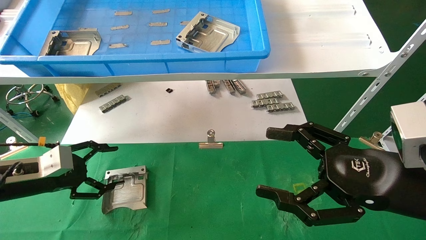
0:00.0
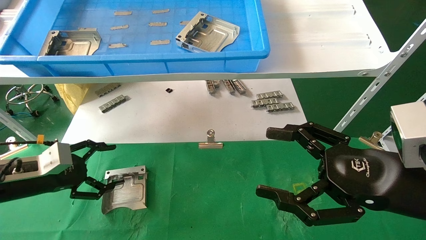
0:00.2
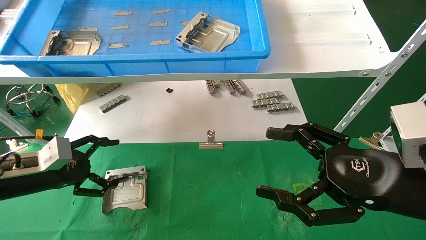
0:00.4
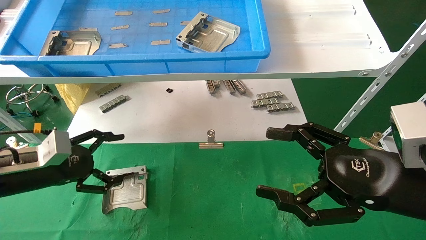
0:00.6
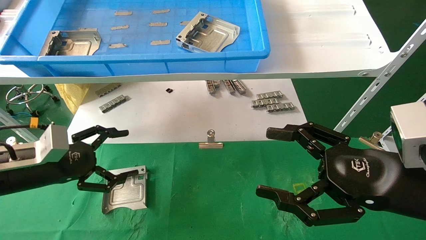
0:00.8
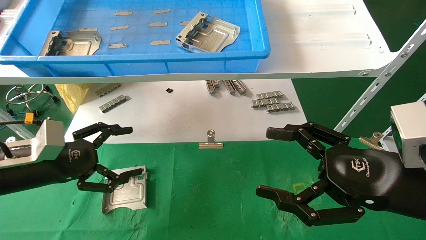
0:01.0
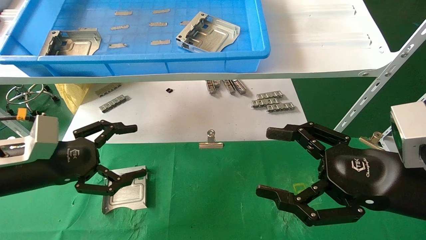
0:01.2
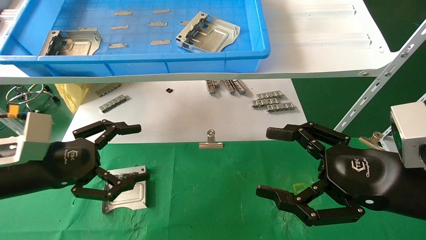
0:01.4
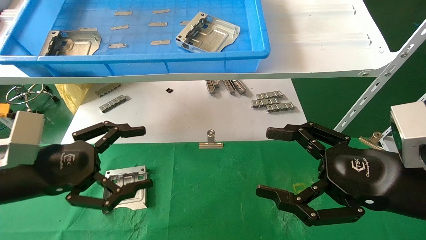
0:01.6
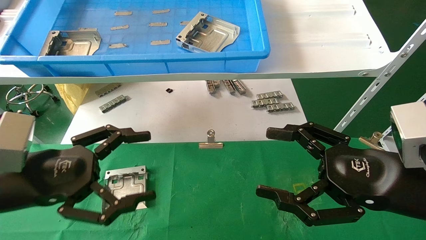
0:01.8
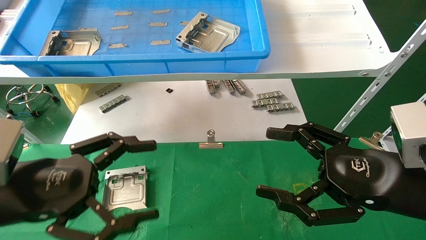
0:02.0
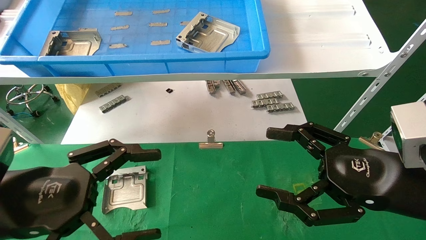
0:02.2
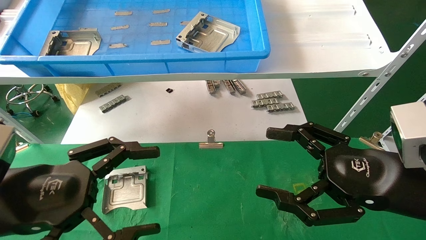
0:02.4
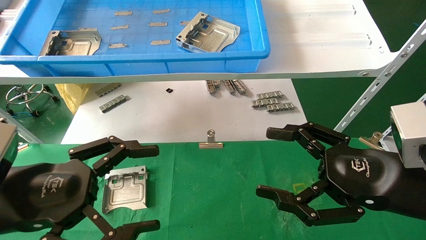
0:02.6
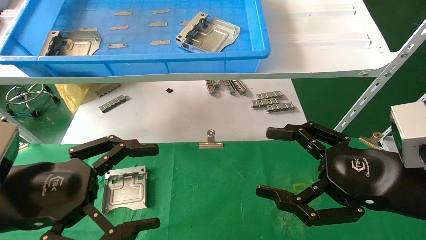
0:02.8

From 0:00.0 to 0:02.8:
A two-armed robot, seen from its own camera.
Task of the whole recording: use the mechanical arm to pick up the parts and place them on the table.
From 0:00.0 to 0:01.4: The left gripper travels to the right, backward and upward by approximately 10 cm.
From 0:01.4 to 0:02.8: The left gripper shifts approximately 10 cm backward.

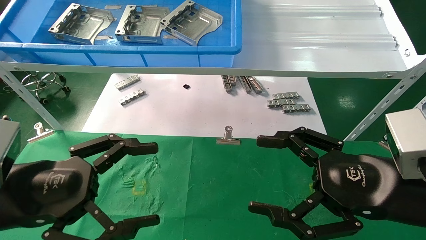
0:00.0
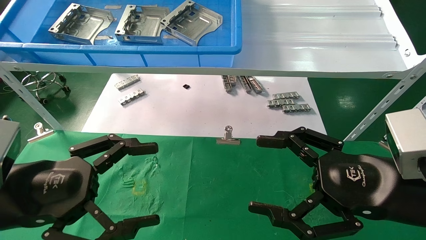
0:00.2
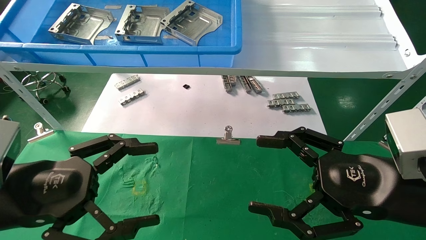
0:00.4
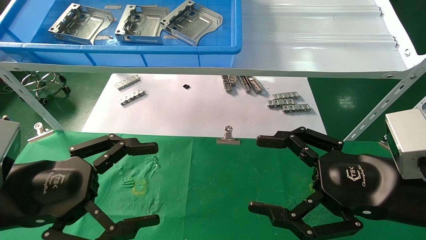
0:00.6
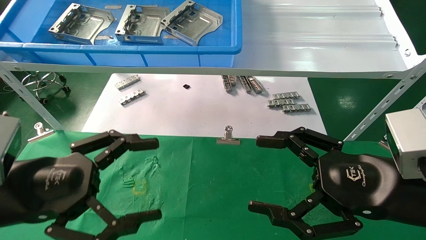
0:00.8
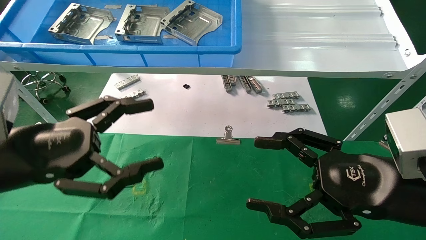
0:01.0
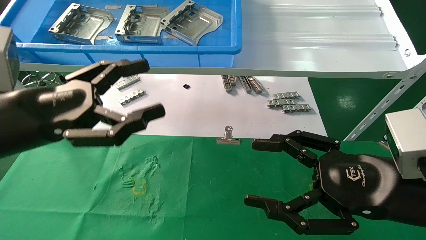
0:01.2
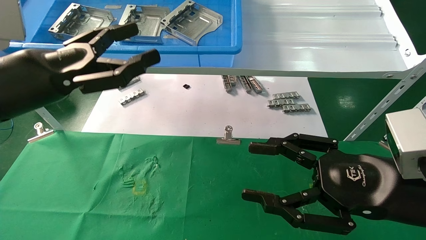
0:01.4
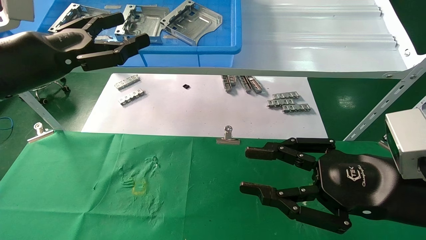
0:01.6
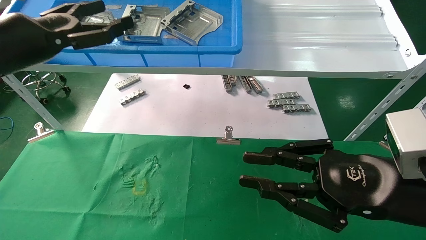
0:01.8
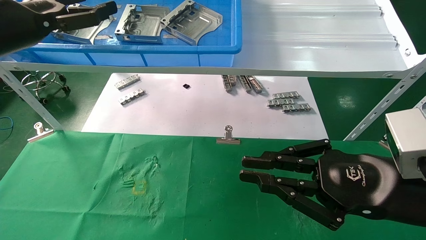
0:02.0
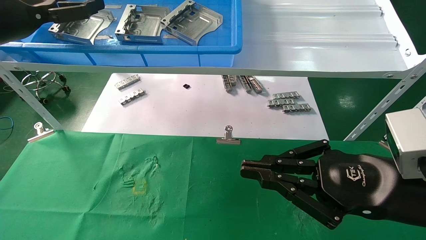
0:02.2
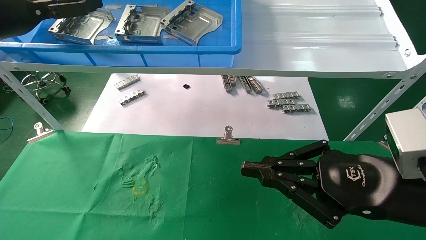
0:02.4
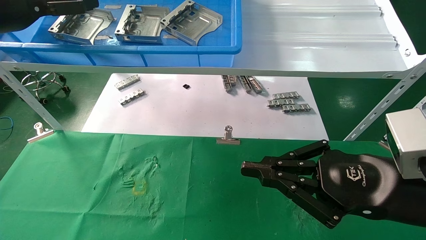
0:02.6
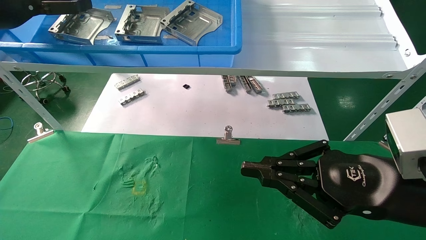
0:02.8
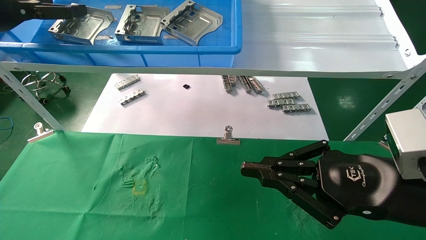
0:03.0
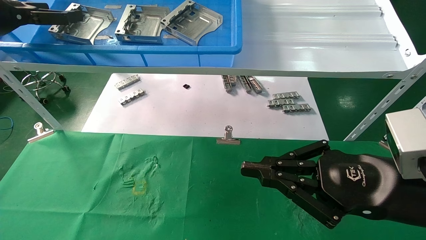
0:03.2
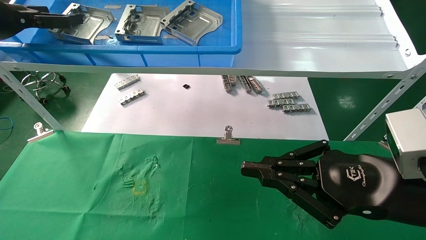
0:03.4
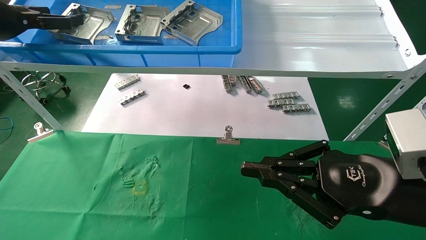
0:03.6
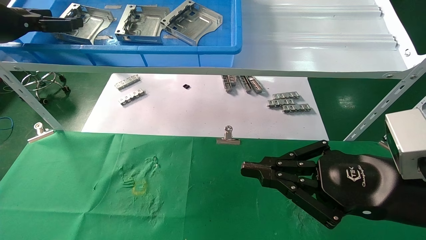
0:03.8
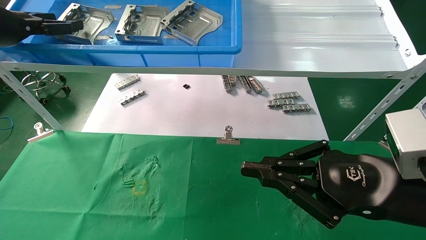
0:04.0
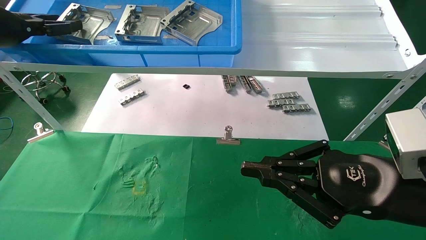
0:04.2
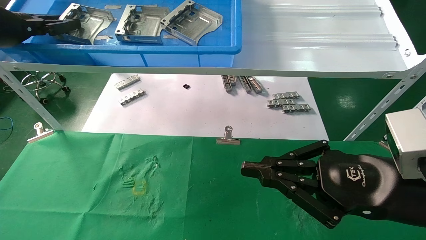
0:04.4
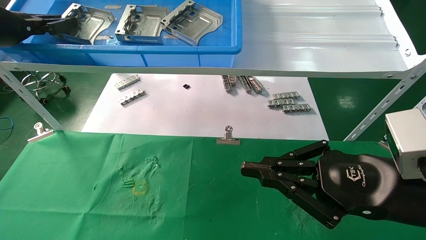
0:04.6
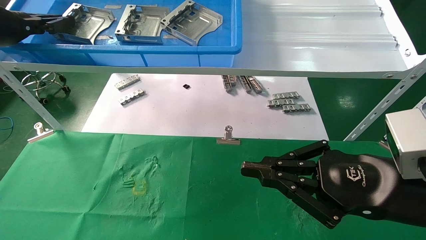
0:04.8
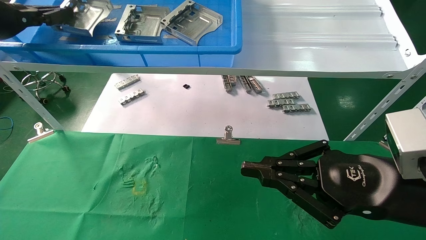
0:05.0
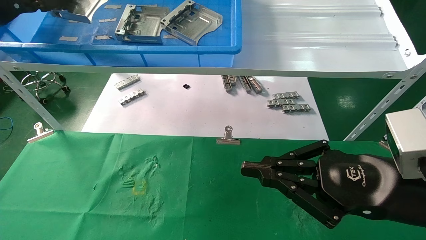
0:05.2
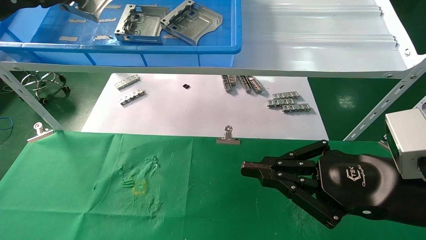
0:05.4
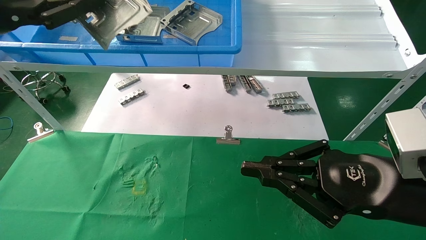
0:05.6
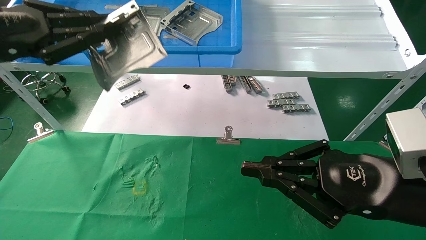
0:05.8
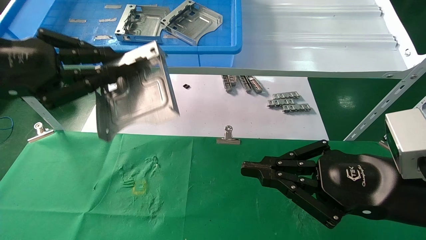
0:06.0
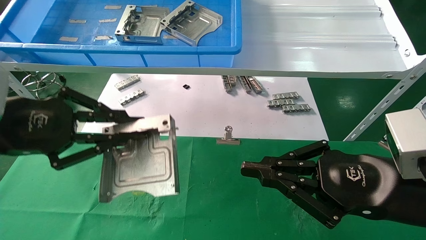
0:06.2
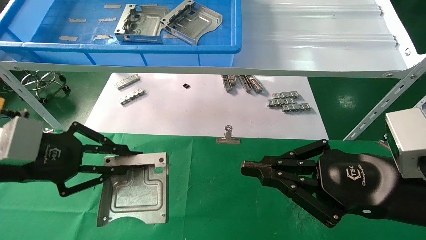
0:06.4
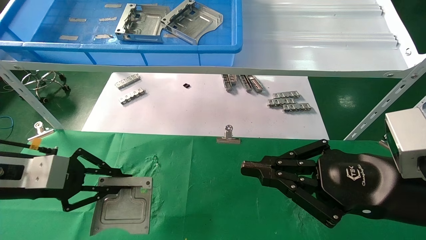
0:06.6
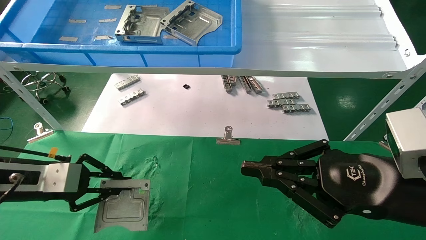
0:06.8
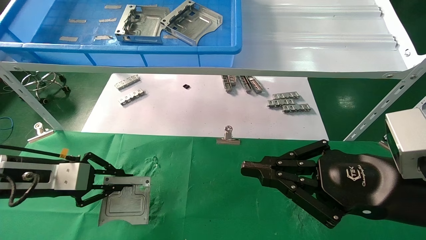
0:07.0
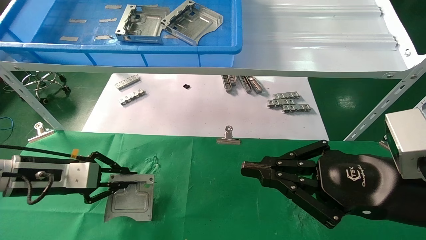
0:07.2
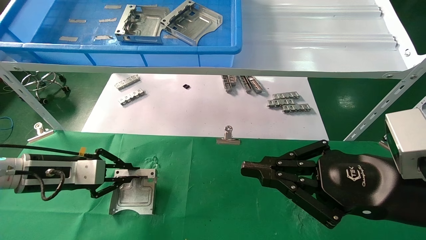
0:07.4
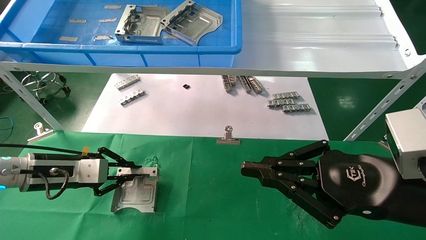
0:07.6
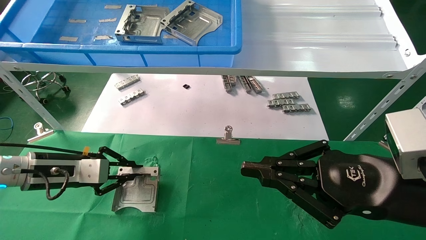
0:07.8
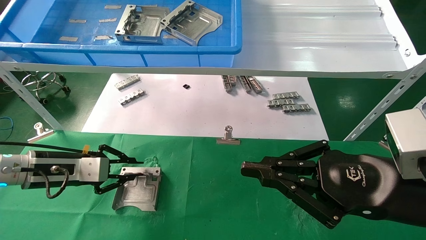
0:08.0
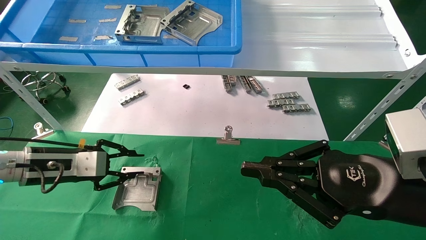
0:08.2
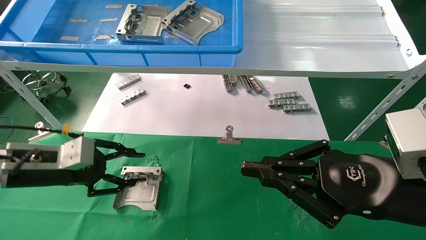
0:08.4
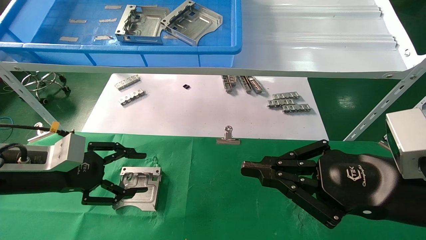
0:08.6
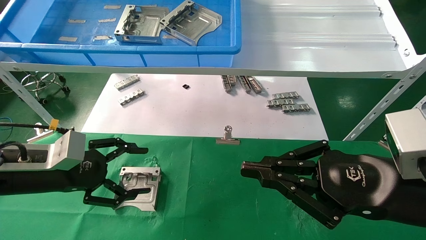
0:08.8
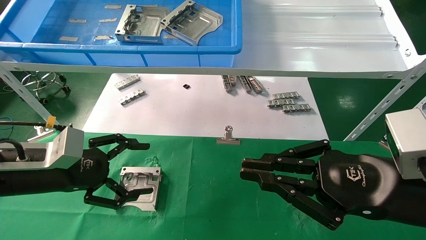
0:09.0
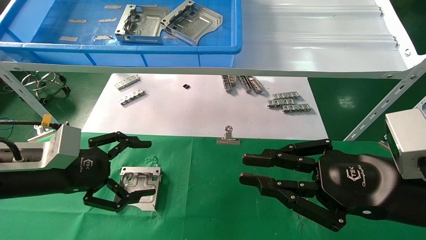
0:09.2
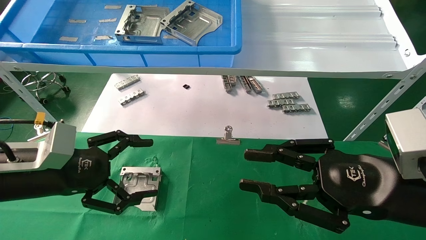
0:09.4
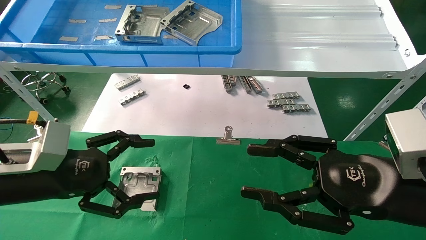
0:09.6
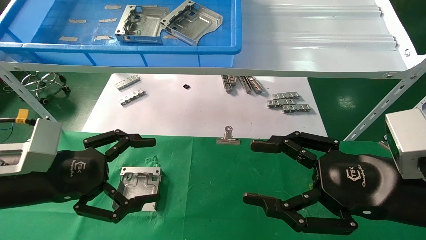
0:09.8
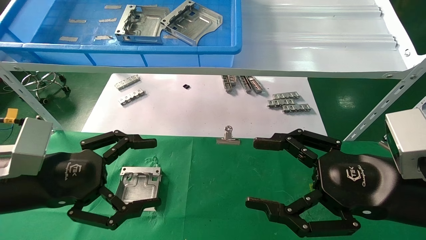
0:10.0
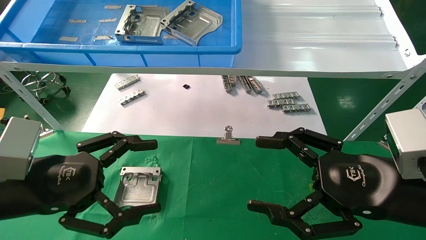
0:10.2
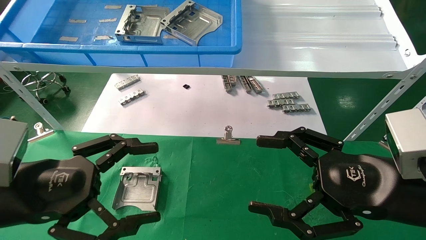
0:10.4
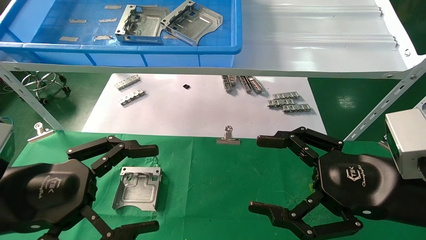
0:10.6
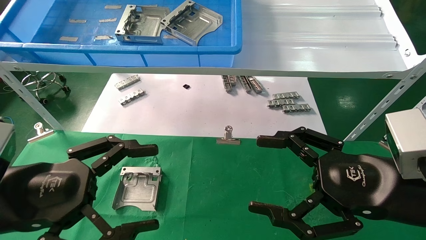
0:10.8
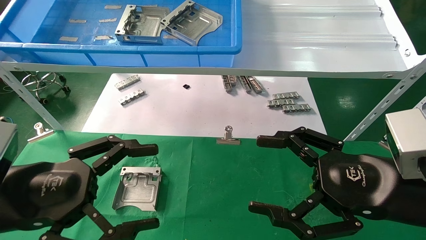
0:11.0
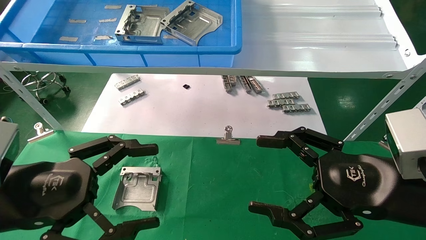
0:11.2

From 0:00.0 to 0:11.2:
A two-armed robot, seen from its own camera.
Task of the whole recording: use the mechanical arm to pick up the parts and place them on the table.
Step, from 0:01.2 to 0:04.8: Pick up the hard drive bracket from the feeding area.
Step, from 0:05.0 to 0:08.0: Place the hard drive bracket into the box.
From 0:00.0 to 0:01.6: The left gripper shifts approximately 15 cm upward and forward, while the right gripper closes.
From 0:01.6 to 0:03.2: The left gripper heads to the left, upward and forward, covering about 15 cm. Meanwhile the right gripper closes its fingers.
From 0:03.2 to 0:04.8: The left gripper closes.
From 0:04.8 to 0:06.4: The left gripper moves downward, backward and to the right, approximately 20 cm.
From 0:06.4 to 0:08.0: The left gripper moves forward and downward, roughly 15 cm.
From 0:08.0 to 0:09.6: The left gripper is displaced backward by approximately 10 cm, and opens up. The right gripper opens.
From 0:09.6 to 0:11.2: The left gripper goes some 5 cm backward. The right gripper opens up.
